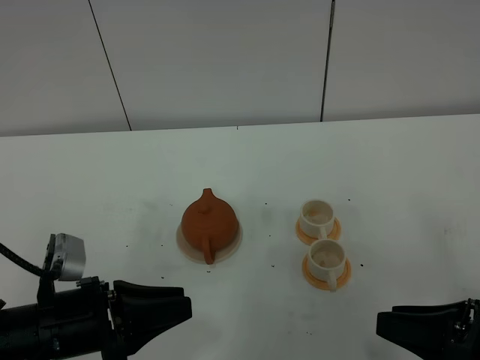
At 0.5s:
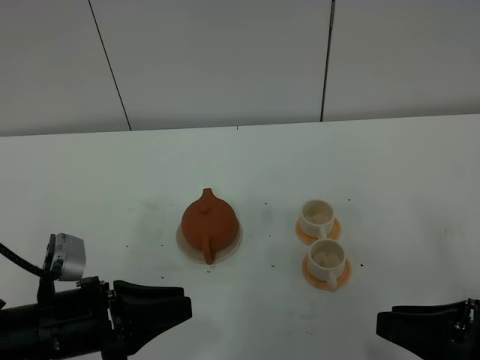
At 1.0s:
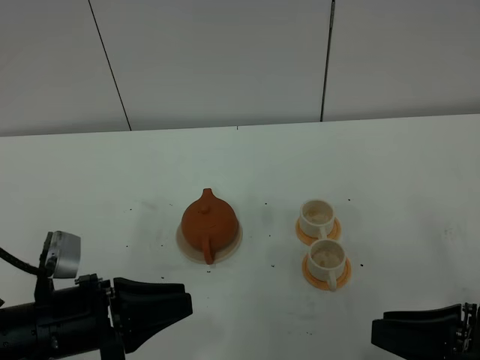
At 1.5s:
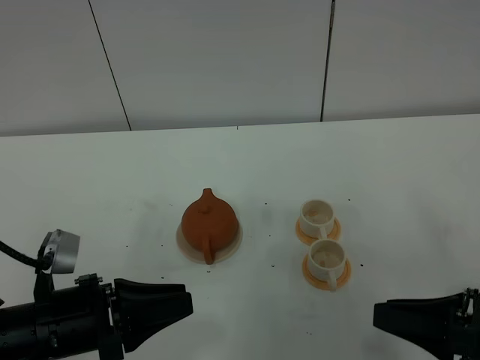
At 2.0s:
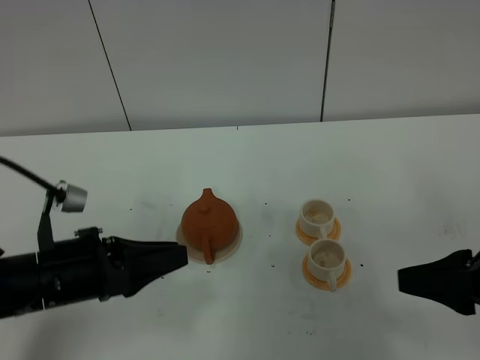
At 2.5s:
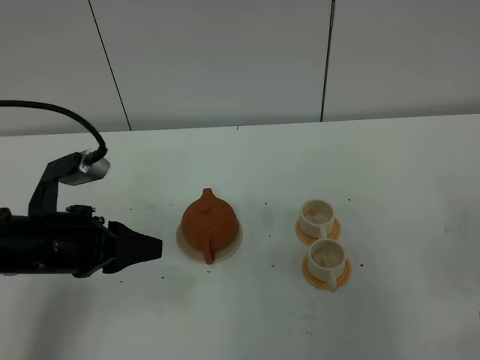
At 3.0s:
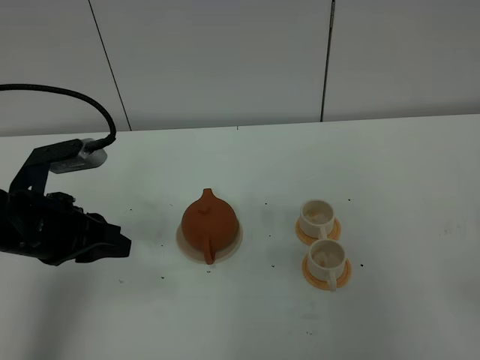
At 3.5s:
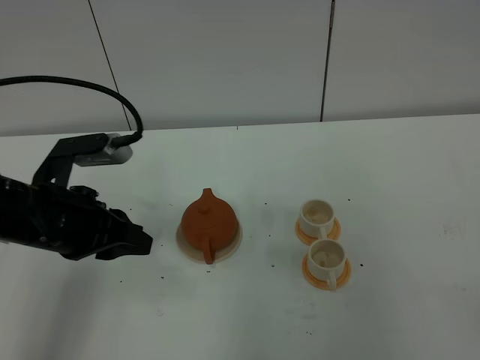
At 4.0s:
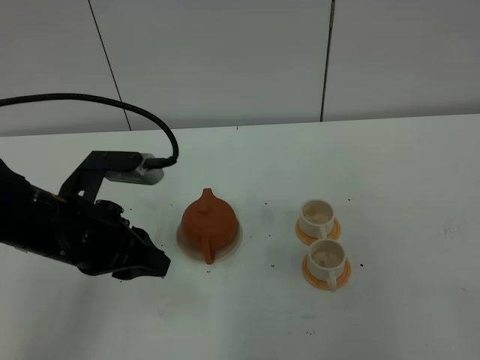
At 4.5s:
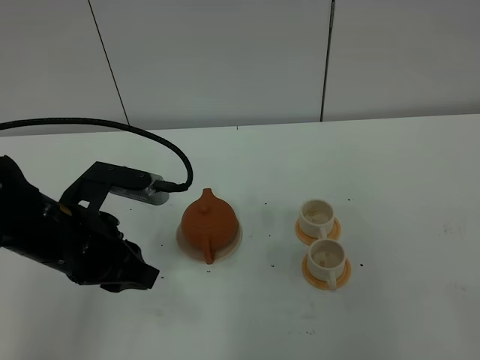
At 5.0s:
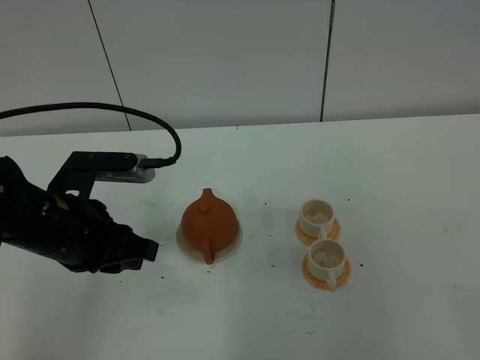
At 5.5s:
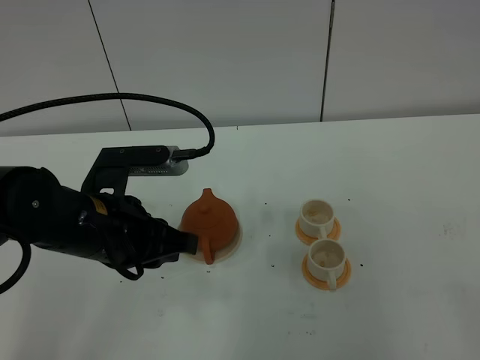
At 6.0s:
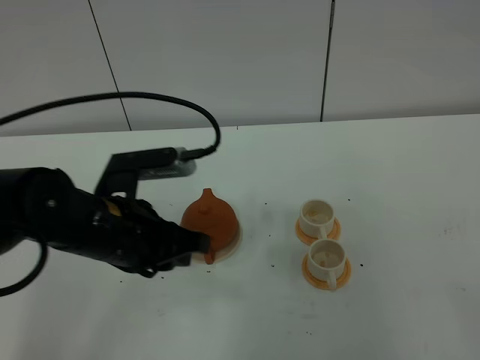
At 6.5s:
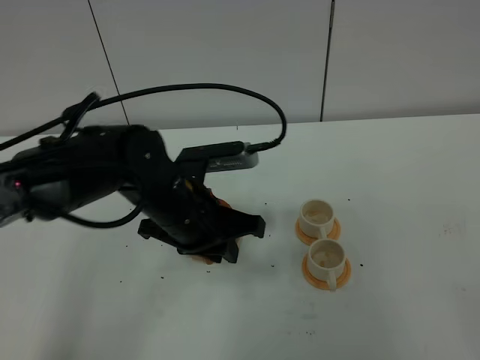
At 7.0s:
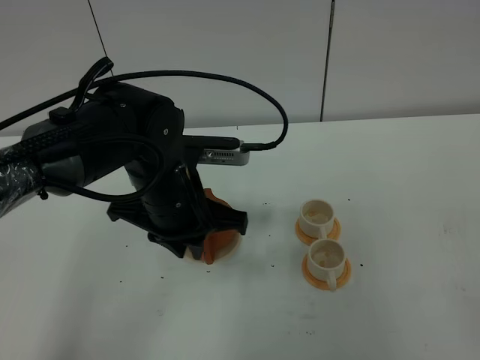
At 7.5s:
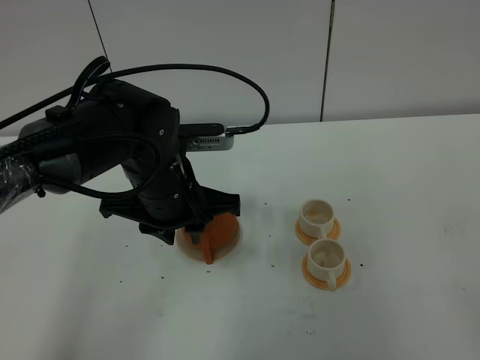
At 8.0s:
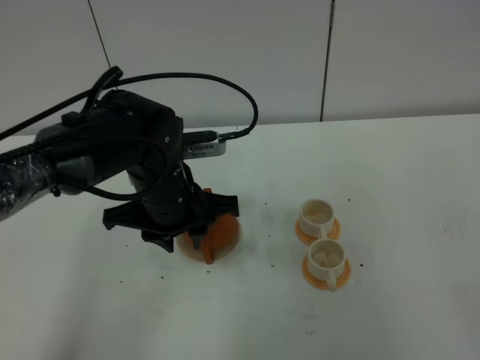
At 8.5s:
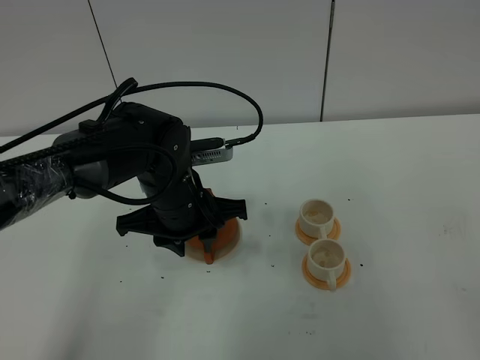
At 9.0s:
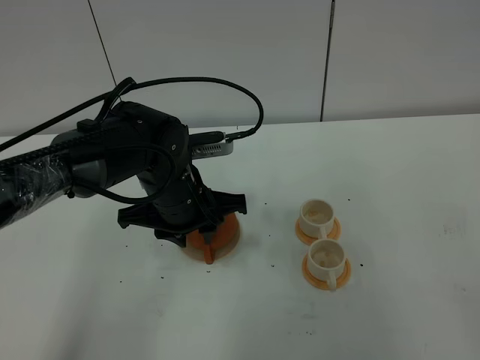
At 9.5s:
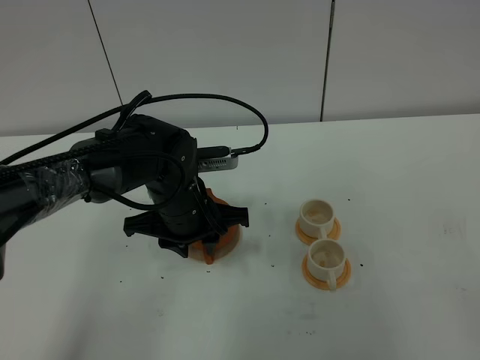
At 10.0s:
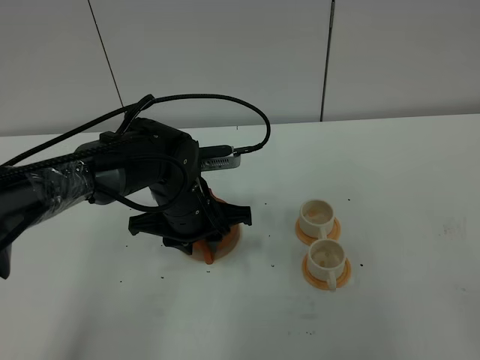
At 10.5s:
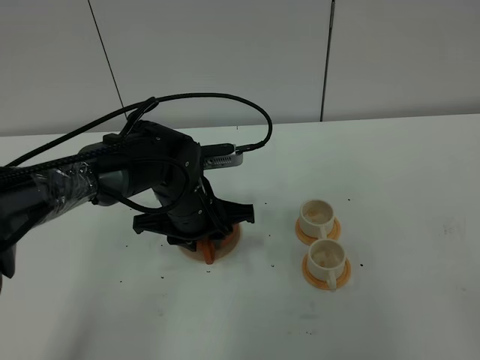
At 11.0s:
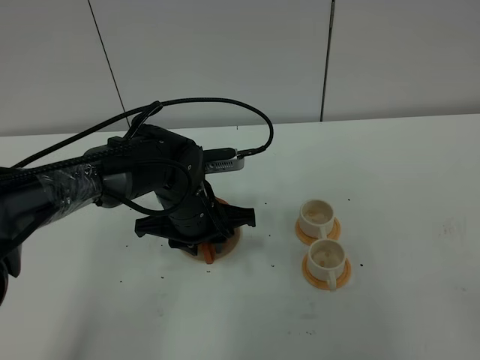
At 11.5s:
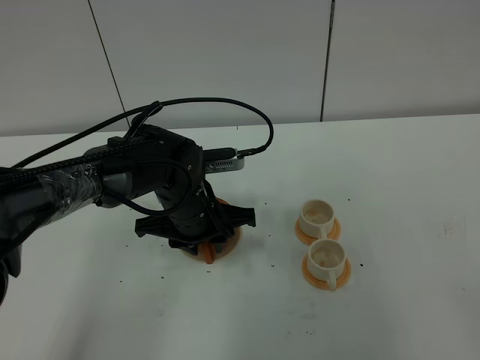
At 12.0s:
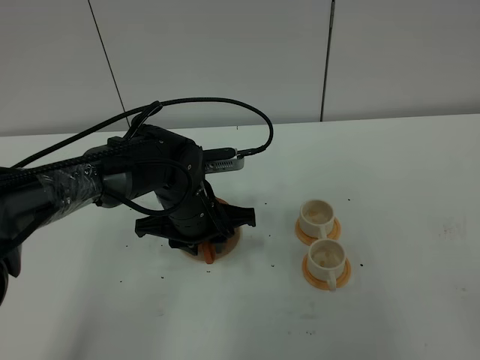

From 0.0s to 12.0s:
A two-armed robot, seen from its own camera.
Task of the whole recording: grasp the brown teapot and pour the tea into the two white teacups one by one, put the brown teapot back in its original place.
From 0.0s to 2.0s: The right gripper is displaced upward by roughly 5 cm. Meanwhile the left gripper changes place by roughly 5 cm.
From 2.0s to 4.0s: The right gripper shifts about 20 cm backward. Meanwhile the left gripper changes place by some 5 cm.
From 4.0s to 6.0s: The left gripper ends up about 5 cm from where it was.
From 6.0s to 8.0s: The left gripper heads forward, covering about 10 cm, and opens up.
From 8.0s to 10.0s: The left gripper shifts by some 5 cm.
From 10.0s to 12.0s: The two grippers keep their place.

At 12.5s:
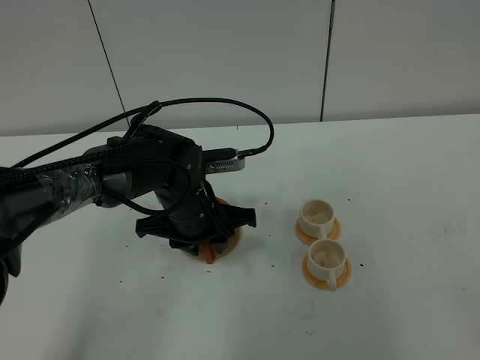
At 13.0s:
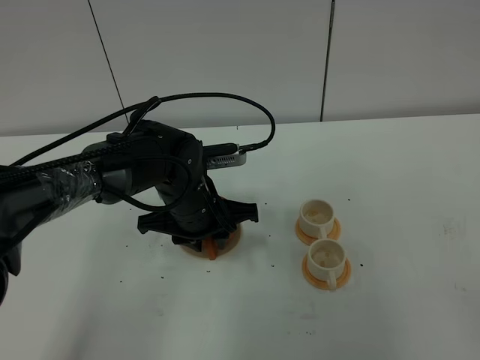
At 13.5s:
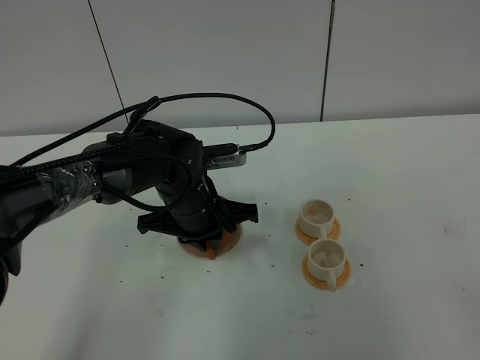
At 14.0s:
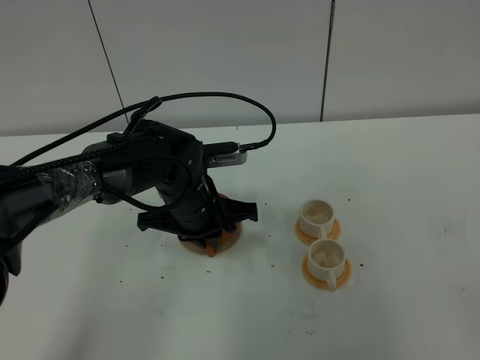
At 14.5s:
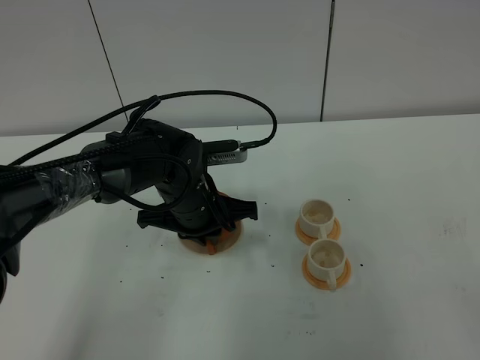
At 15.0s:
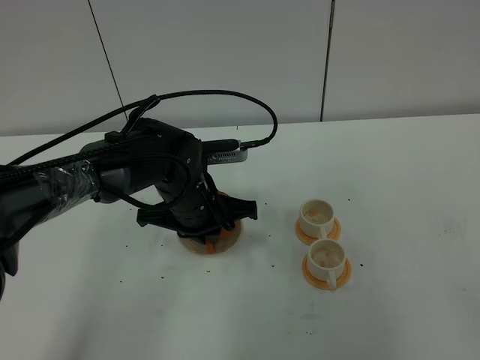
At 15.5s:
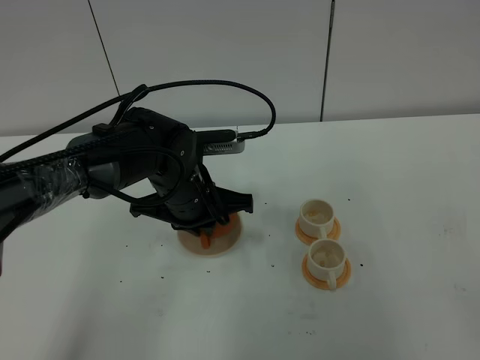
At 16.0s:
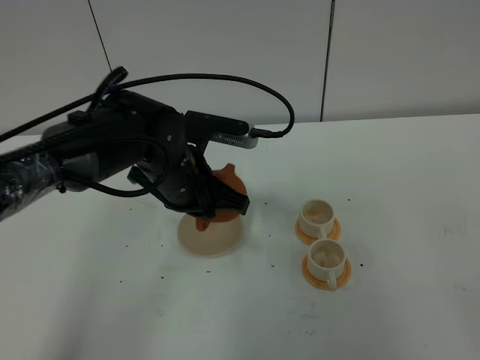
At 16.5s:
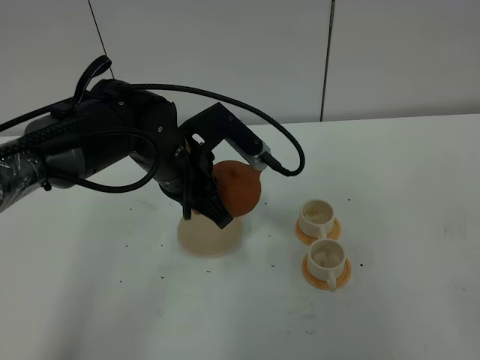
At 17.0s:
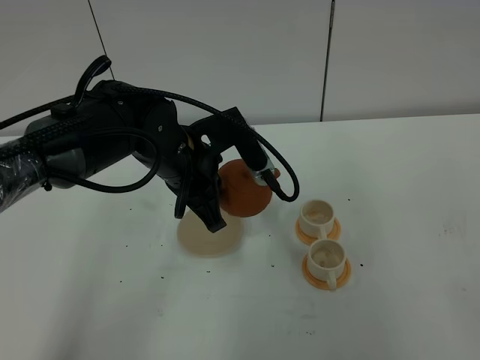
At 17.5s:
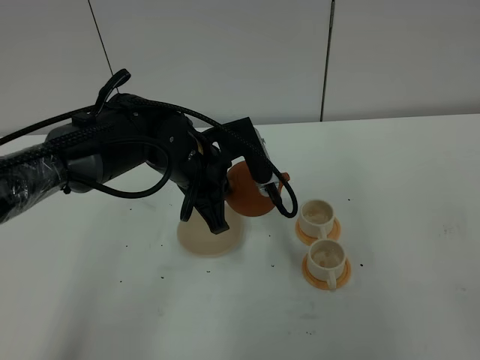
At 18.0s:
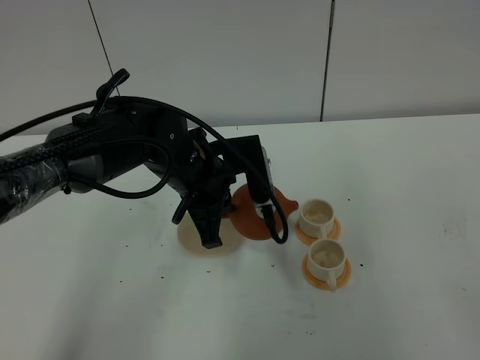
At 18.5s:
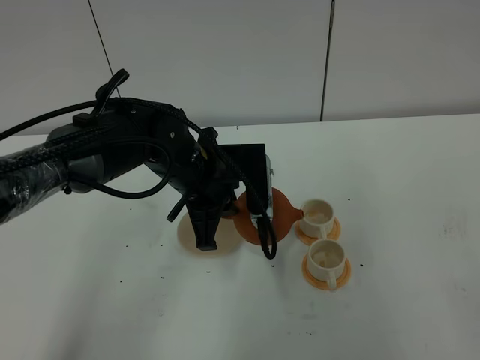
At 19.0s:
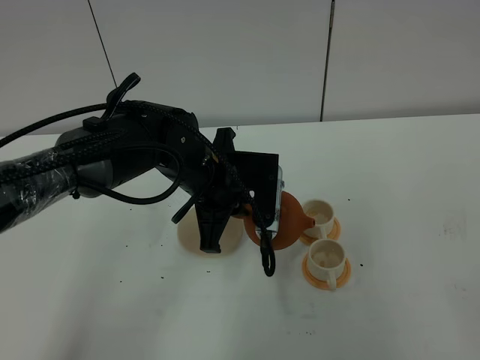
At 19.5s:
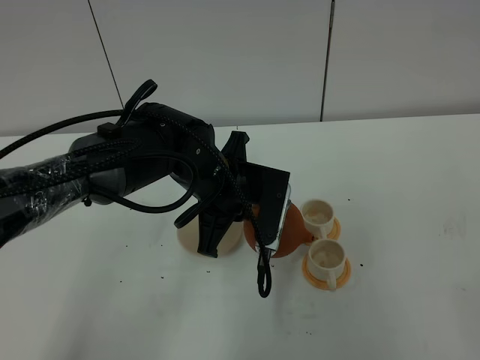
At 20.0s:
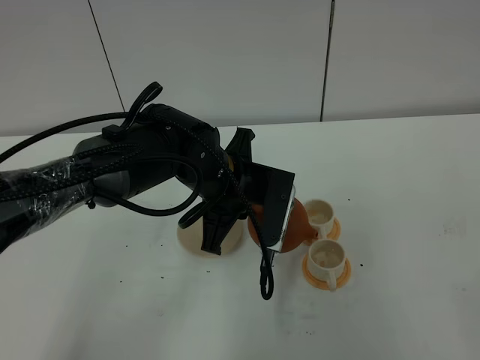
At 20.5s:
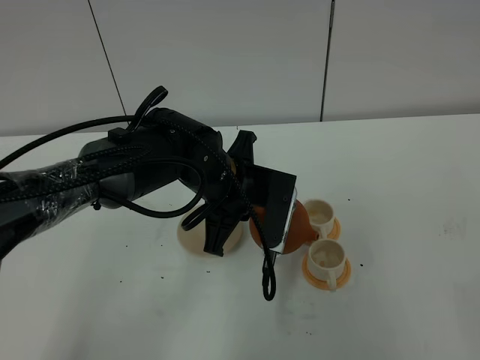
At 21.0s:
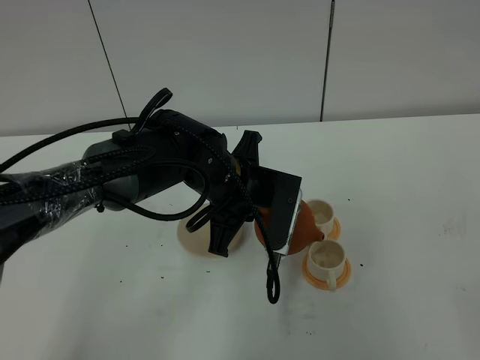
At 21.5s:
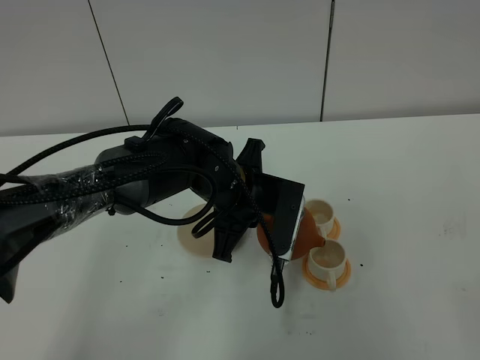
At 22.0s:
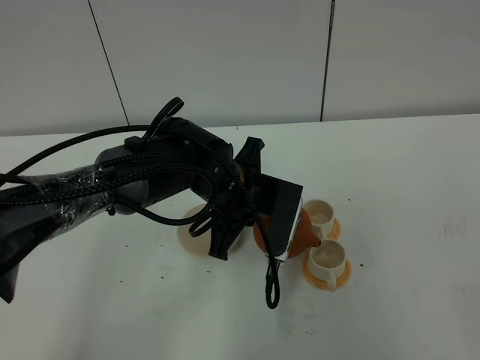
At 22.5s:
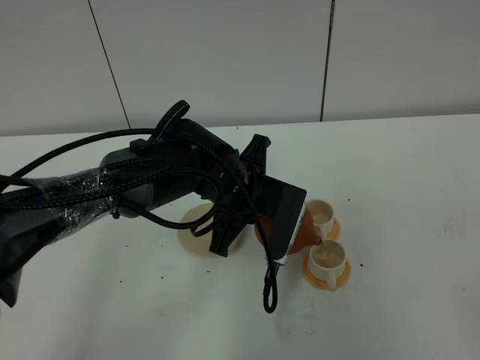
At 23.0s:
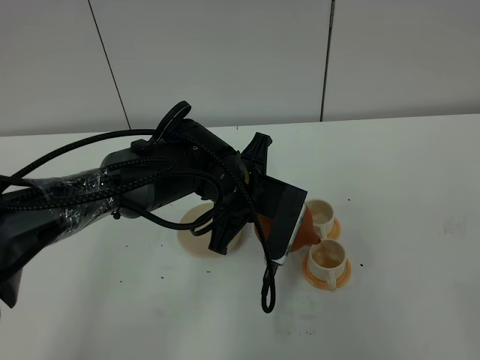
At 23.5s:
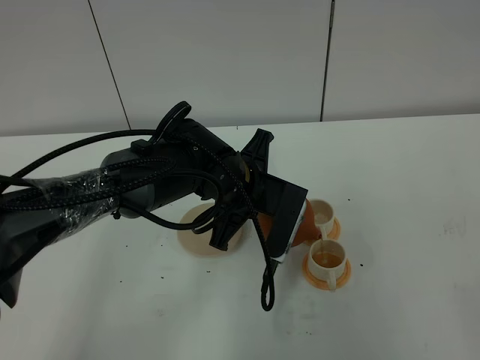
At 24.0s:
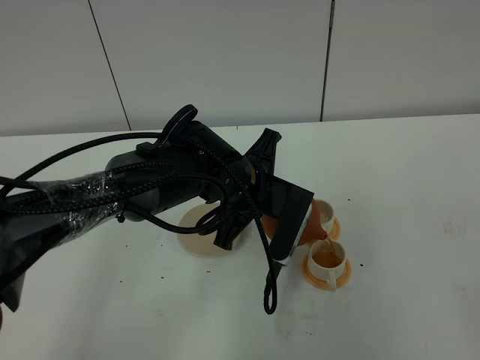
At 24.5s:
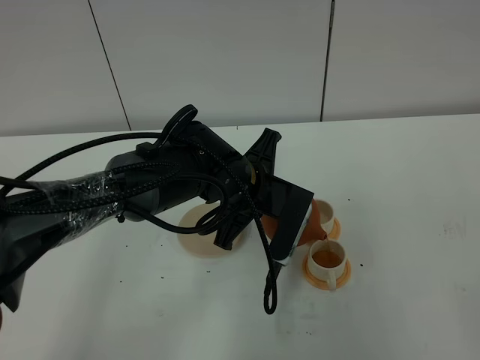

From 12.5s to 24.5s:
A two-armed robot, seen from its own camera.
Task of the whole recording: grasp the brown teapot and pour the tea into the two white teacups one by one, put the brown teapot back in its original place.
Step, from 12.5s to 15.5s: Pick up the teapot with the left gripper.
From 12.5s to 14.5s: The left gripper closes its fingers.
From 14.5s to 16.5s: The left gripper is displaced upward by roughly 5 cm.
From 18.5s to 20.5s: There are only small adjustments of the grippers.
From 20.5s to 24.5s: The grippers make only small movements.

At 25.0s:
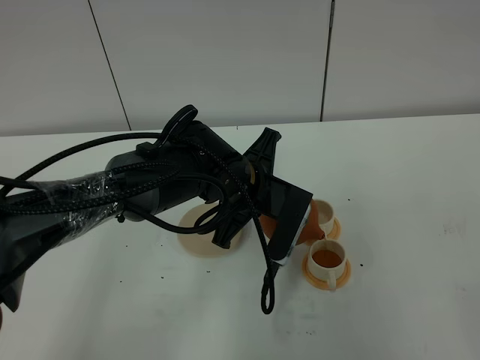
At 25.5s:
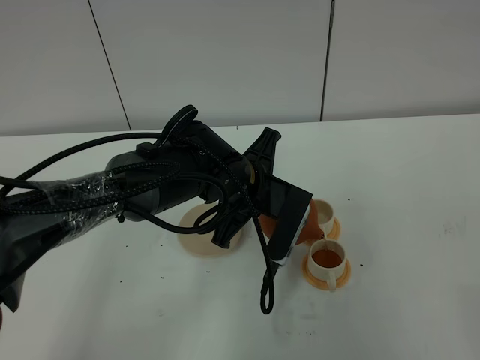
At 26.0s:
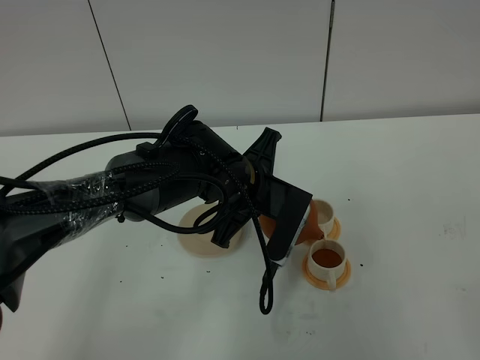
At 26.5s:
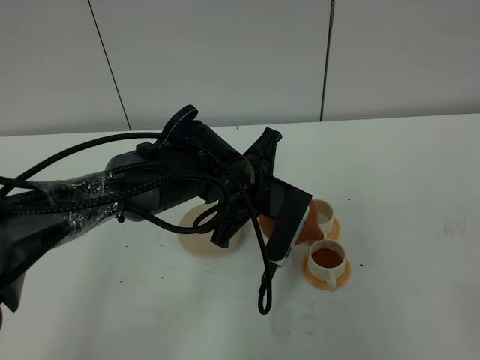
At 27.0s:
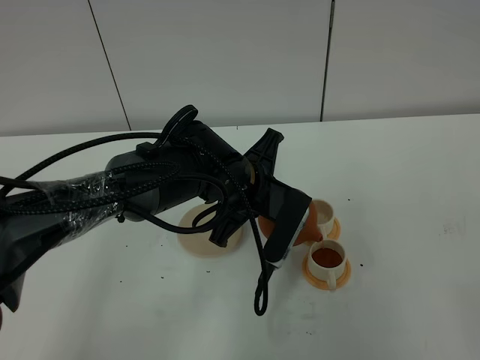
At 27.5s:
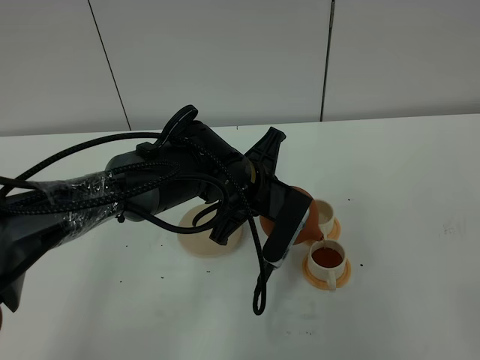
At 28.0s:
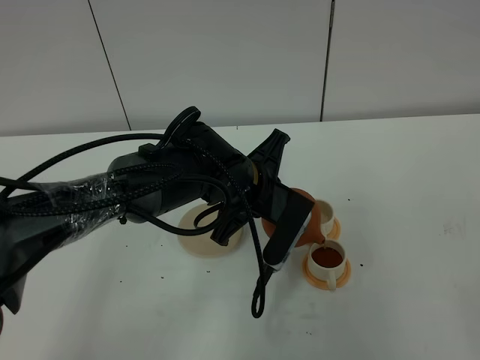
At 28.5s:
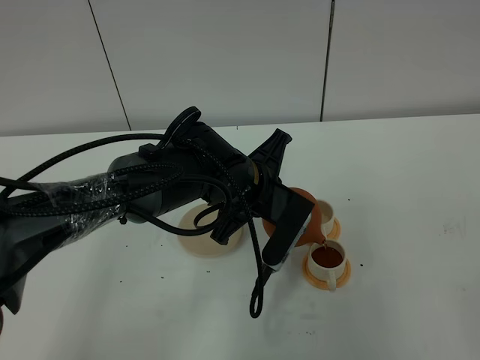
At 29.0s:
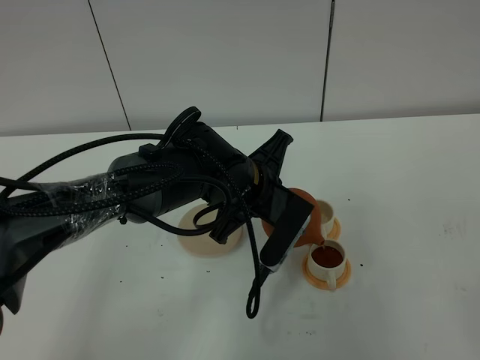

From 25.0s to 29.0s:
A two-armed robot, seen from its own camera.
Task of the whole recording: grasp the brown teapot and pour the tea into the two white teacups one by one, put the brown teapot back in its original place.
From 25.0s to 27.0s: Both grippers stay about where they are.
From 27.0s to 29.0s: There are only small adjustments of the grippers.
